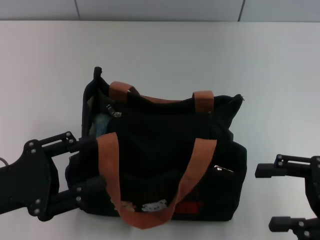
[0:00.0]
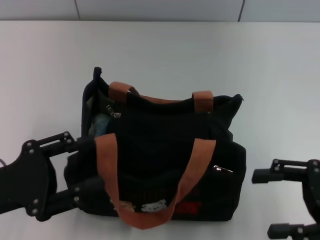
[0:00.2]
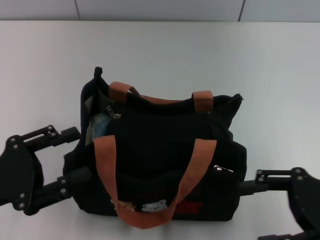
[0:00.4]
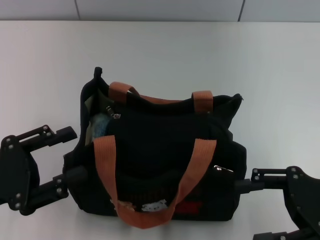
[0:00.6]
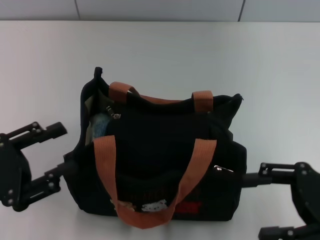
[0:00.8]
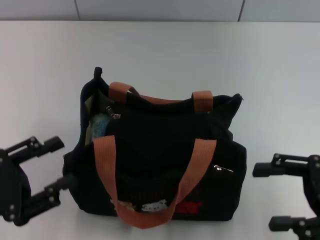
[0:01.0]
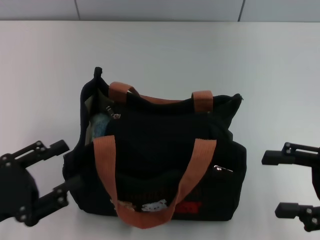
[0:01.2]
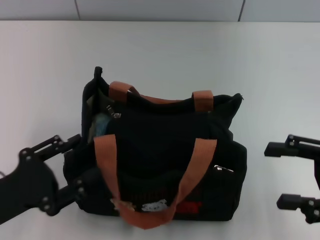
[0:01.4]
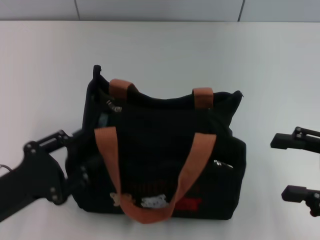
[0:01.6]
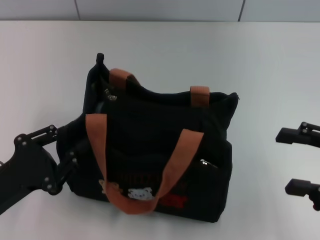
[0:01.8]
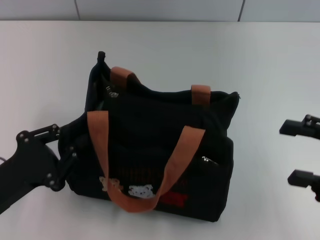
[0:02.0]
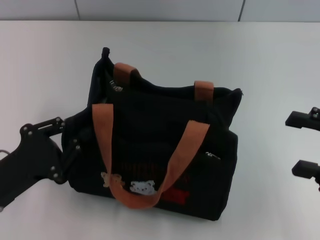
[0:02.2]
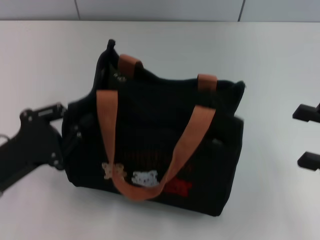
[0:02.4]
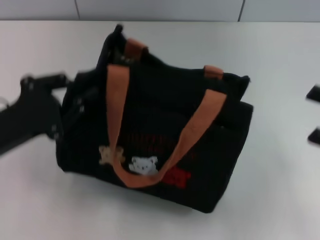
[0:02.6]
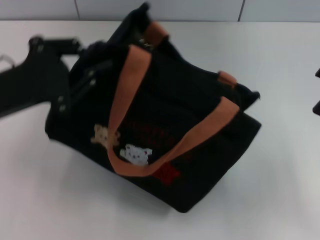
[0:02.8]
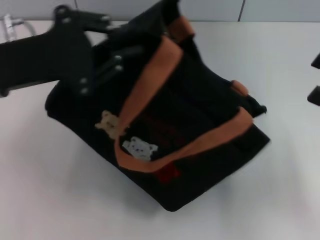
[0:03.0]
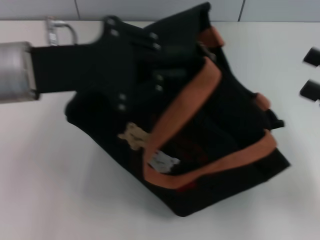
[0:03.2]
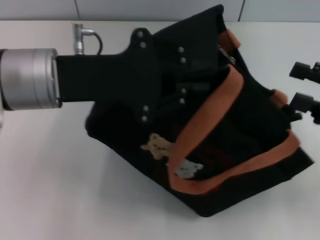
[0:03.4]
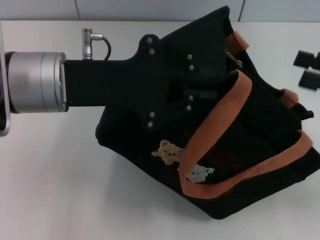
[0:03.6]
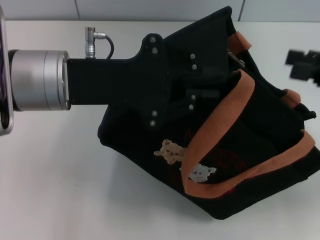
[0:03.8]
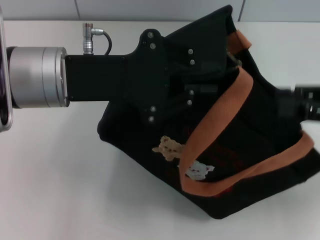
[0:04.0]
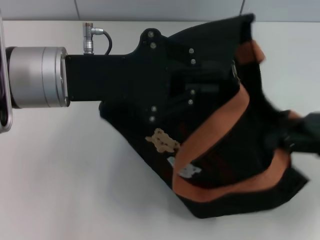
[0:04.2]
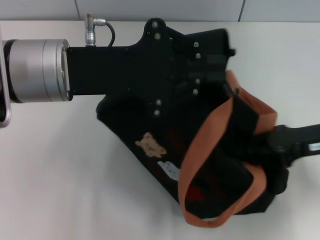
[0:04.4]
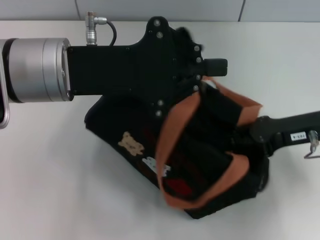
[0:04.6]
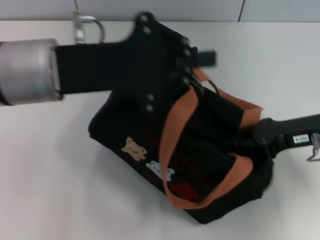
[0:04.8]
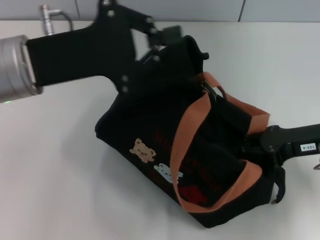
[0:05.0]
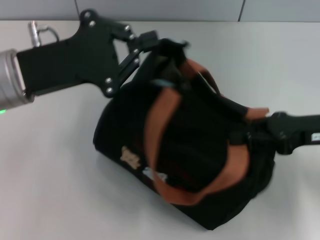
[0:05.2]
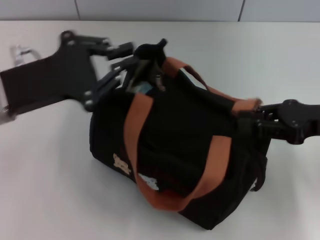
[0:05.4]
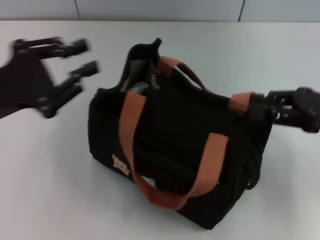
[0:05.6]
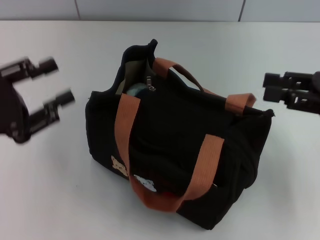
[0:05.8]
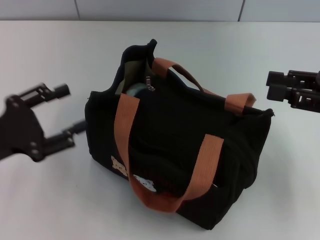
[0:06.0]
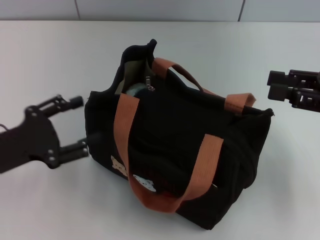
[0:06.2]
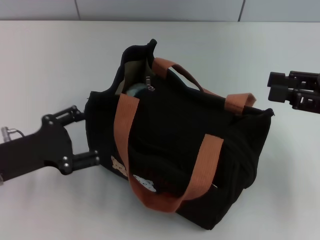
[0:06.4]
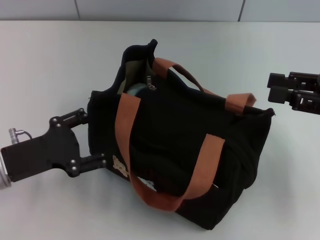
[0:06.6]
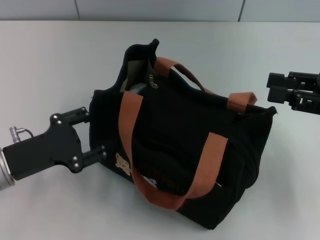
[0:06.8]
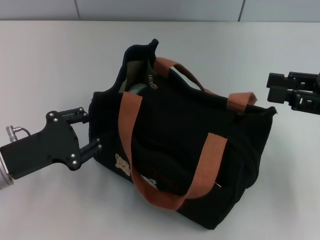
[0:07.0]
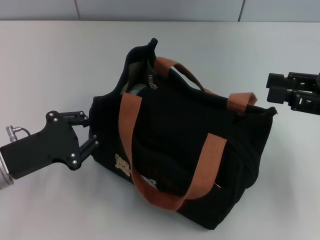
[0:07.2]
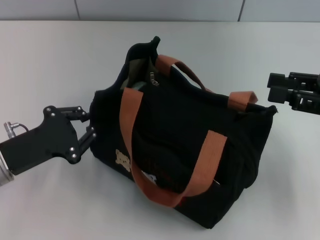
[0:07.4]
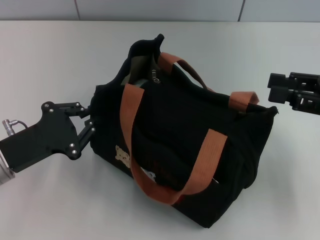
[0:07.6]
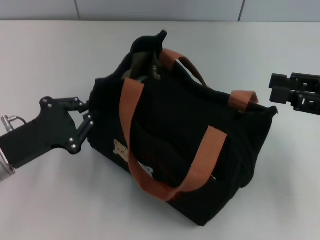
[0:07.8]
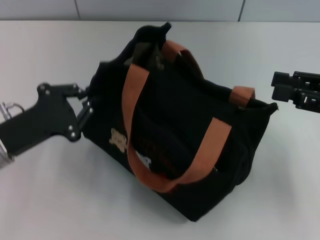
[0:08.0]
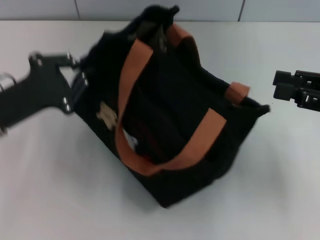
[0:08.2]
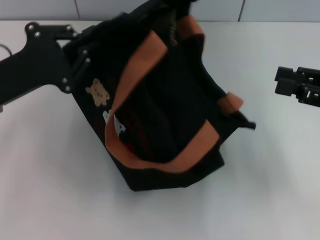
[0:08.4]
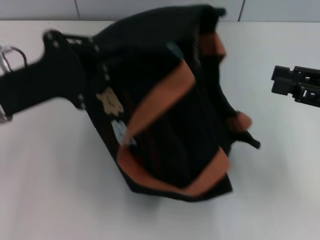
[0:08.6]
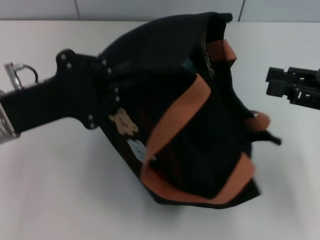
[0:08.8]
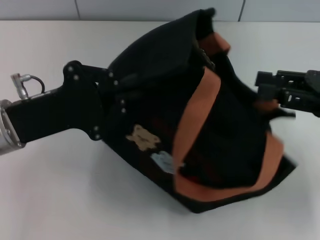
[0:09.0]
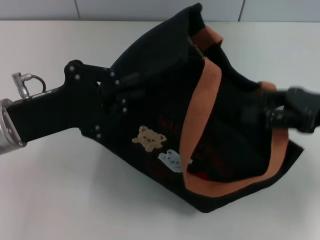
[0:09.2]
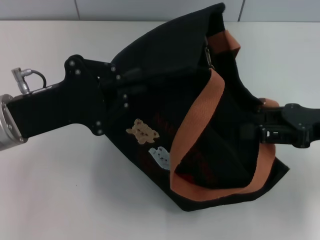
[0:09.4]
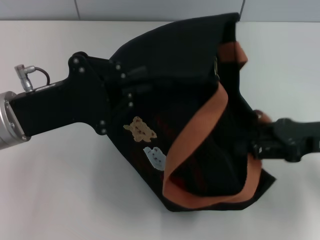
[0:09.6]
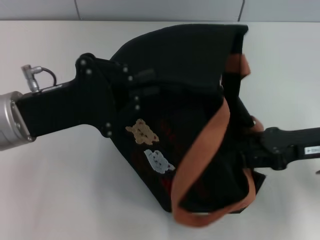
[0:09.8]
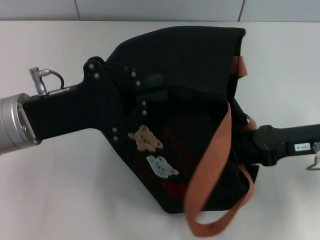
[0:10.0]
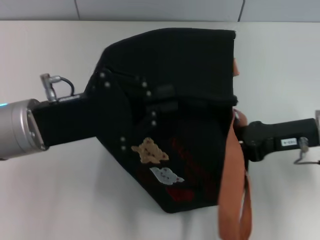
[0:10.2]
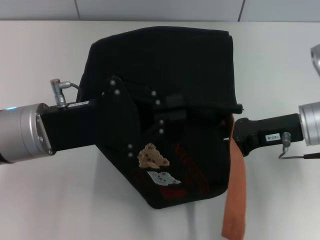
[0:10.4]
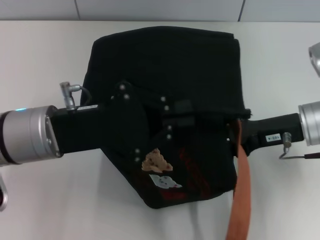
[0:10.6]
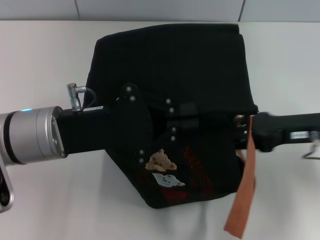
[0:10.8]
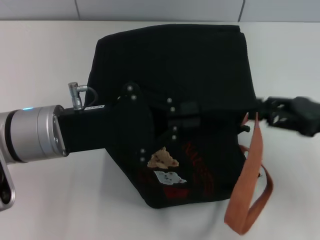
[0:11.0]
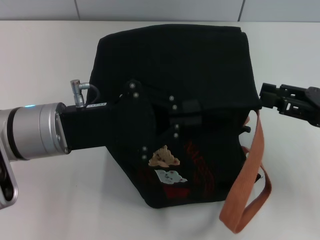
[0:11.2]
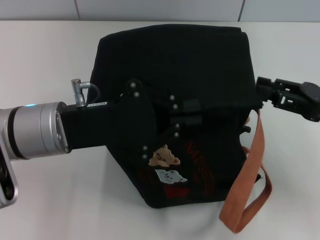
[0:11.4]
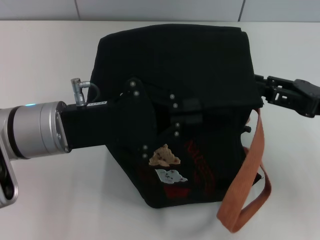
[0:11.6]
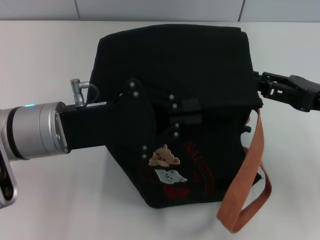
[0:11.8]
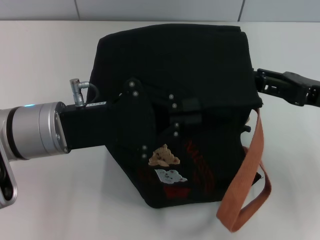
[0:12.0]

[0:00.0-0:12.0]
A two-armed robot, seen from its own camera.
0.0 to 1.6 s: The grippers make only small movements.
1.6 to 3.0 s: The left gripper heads upward and forward, covering some 20 cm, and closes.
3.0 to 4.4 s: The right gripper moves to the left and forward, some 10 cm, and closes up. Meanwhile the left gripper heads to the right, covering about 5 cm.
4.4 to 6.0 s: The left gripper shifts approximately 20 cm to the left, downward and backward, and opens. The right gripper changes place by some 5 cm.
6.0 to 7.6 s: The left gripper shifts about 5 cm downward, and closes up.
7.6 to 9.0 s: The left gripper heads upward, covering some 5 cm.
9.0 to 10.4 s: The right gripper shifts roughly 10 cm to the left and downward.
10.4 to 12.0 s: The right gripper heads to the right, covering roughly 5 cm.

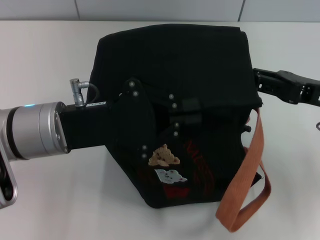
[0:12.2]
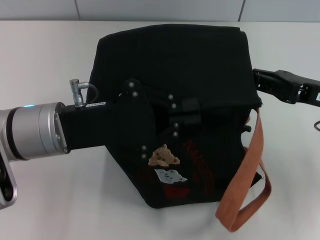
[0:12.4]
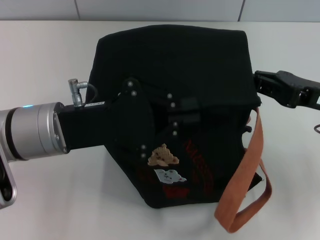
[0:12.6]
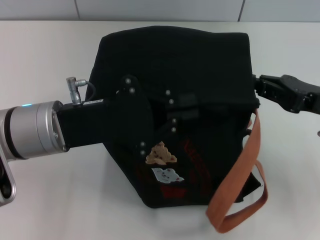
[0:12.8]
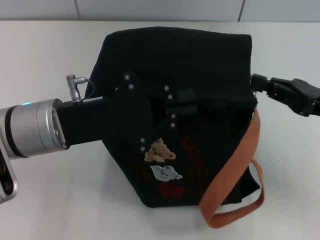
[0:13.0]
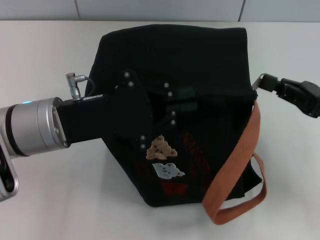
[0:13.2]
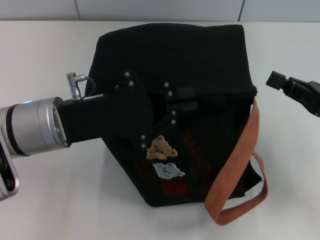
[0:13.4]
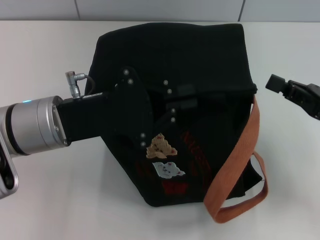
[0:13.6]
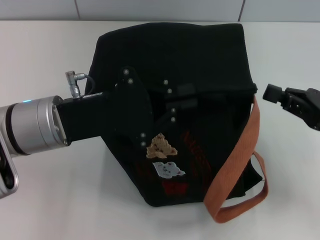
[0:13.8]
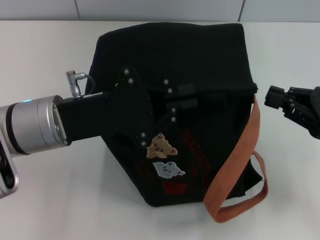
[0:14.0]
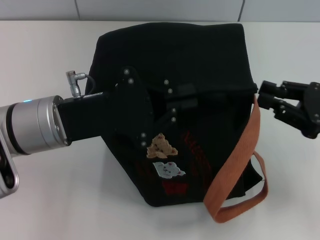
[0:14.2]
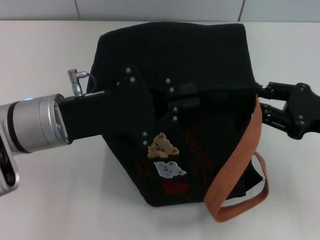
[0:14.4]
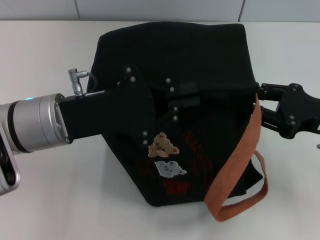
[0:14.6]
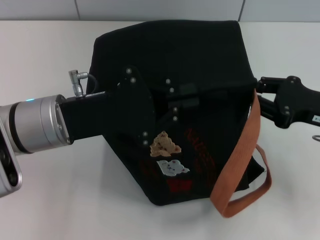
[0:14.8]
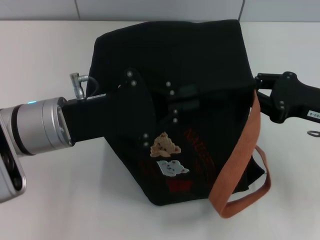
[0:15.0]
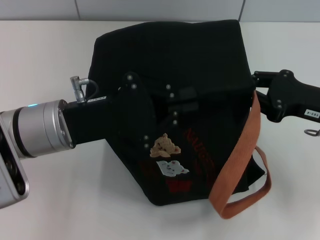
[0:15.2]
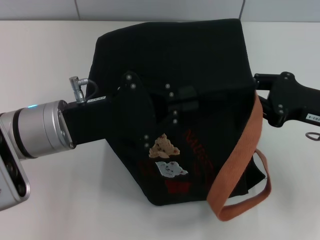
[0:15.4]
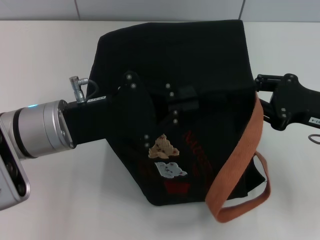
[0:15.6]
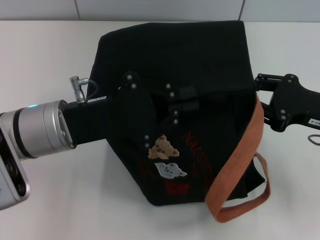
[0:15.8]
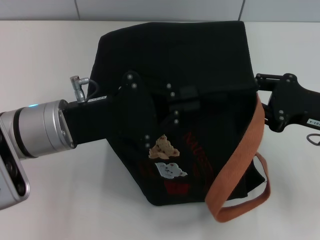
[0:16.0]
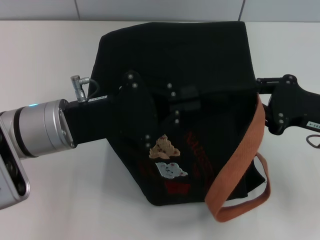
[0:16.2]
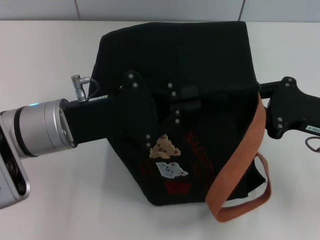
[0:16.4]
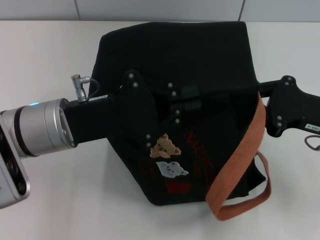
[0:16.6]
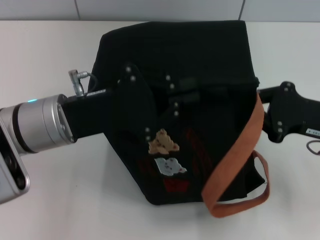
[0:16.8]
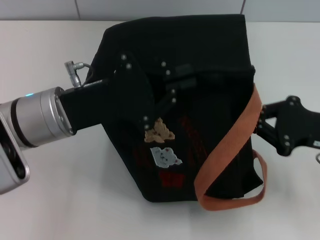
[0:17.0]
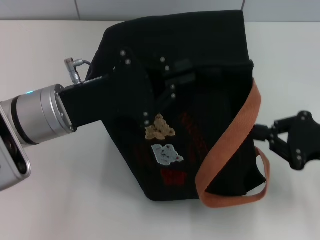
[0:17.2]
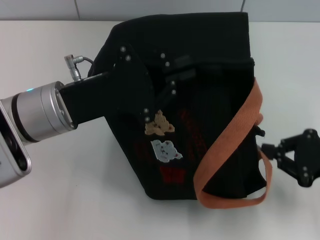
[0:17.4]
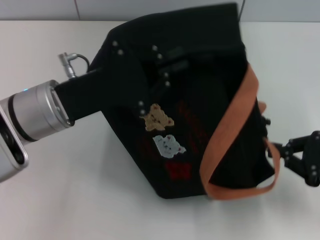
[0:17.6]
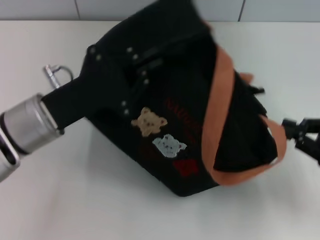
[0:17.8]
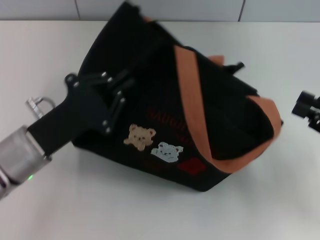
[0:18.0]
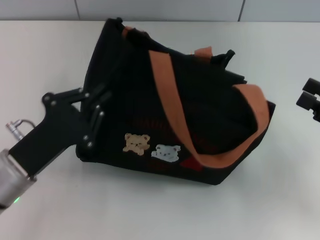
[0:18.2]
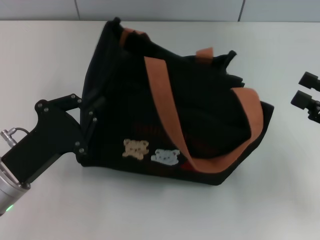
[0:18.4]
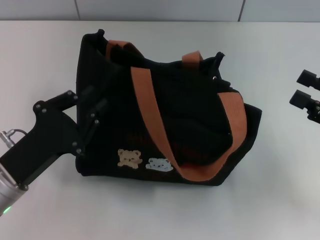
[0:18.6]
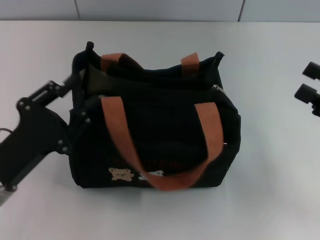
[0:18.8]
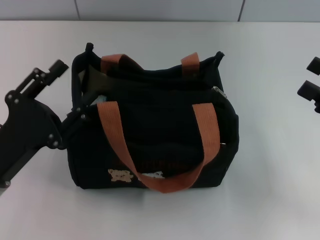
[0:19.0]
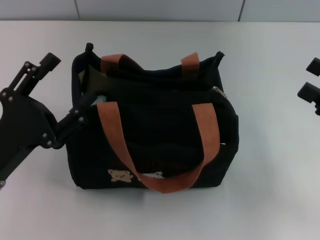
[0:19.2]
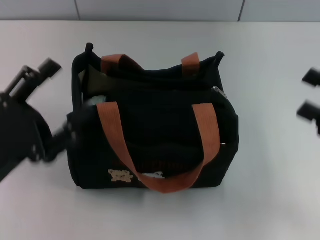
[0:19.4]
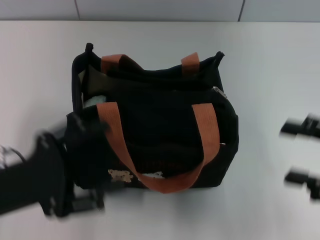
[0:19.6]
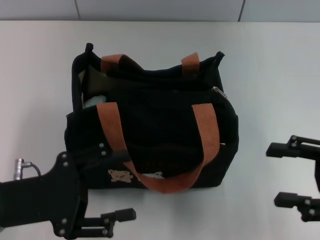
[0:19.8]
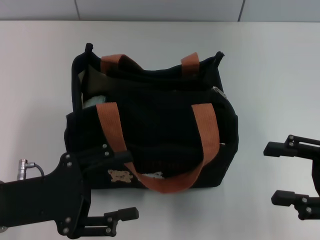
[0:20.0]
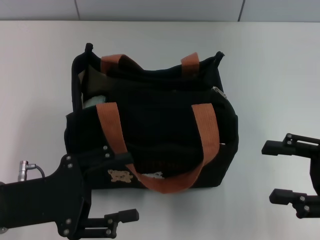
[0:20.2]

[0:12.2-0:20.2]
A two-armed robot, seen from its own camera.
Step, 12.2 to 18.0 s: Pull open the zipper with your right hand.
Step, 18.2 to 18.6 s: Grab the bag with your left hand.
12.2 to 13.8 s: The right gripper changes place by approximately 5 cm, and closes its fingers.
17.0 to 18.6 s: The left gripper goes about 15 cm downward, backward and to the left. Meanwhile the right gripper changes place by about 5 cm, and opens its fingers.
18.6 to 20.2 s: The left gripper opens.

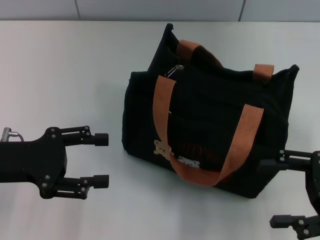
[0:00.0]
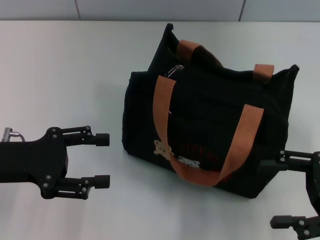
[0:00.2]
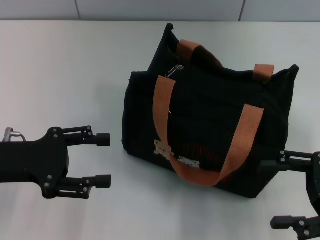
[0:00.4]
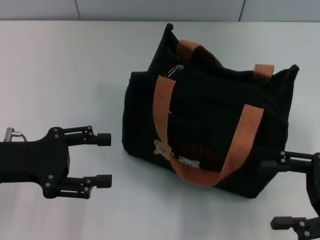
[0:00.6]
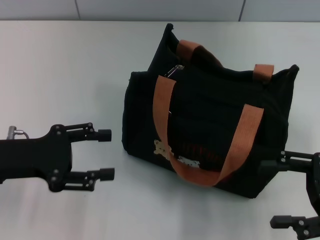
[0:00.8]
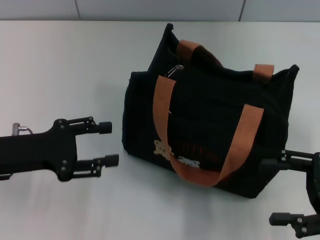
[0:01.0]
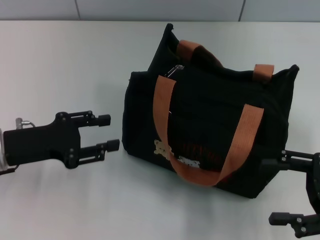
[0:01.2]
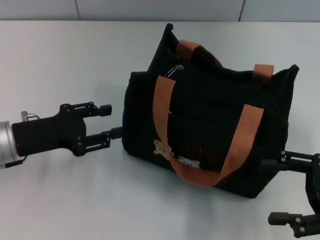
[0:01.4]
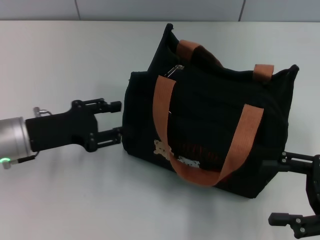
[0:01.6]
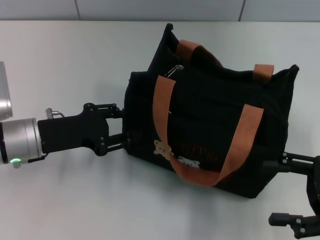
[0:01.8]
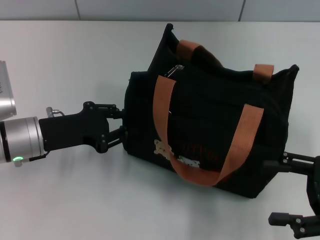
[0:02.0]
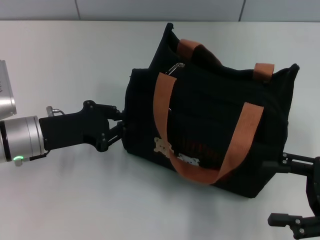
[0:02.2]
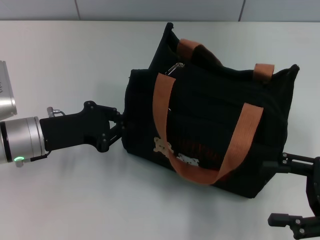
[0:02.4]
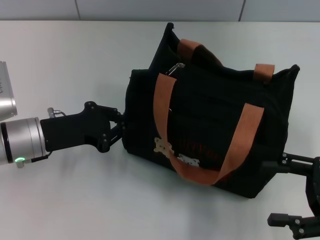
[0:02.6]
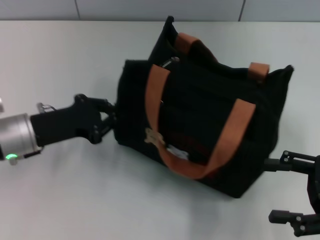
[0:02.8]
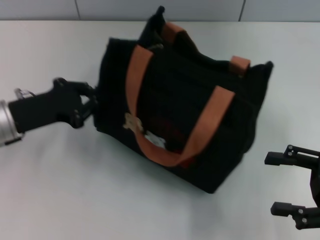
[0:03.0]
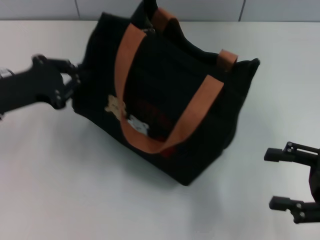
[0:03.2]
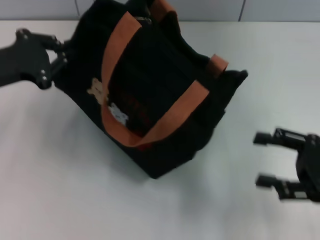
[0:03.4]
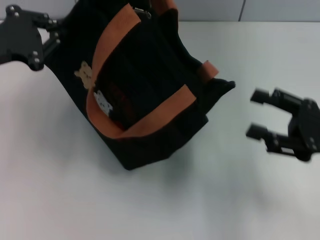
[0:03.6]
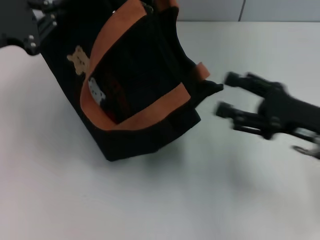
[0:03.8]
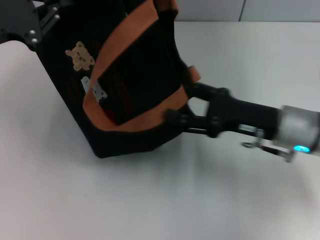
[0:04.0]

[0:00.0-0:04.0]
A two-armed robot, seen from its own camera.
0.0 to 1.4 s: The grippers make only small movements.
1.4 to 2.6 s: The left gripper closes up.
2.6 to 4.0 s: The right gripper goes roughly 15 cm to the left and forward, while the left gripper travels upward and to the left by about 15 cm.
